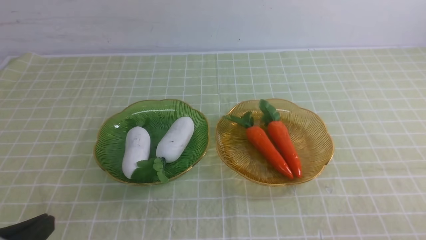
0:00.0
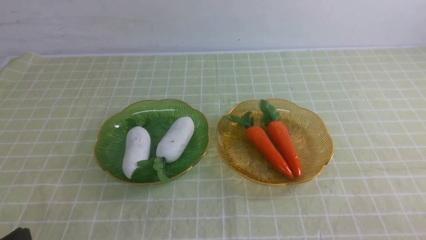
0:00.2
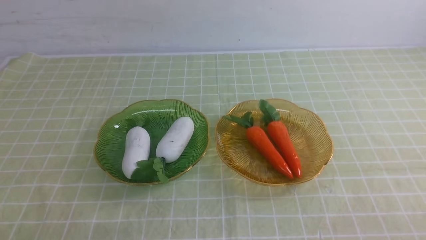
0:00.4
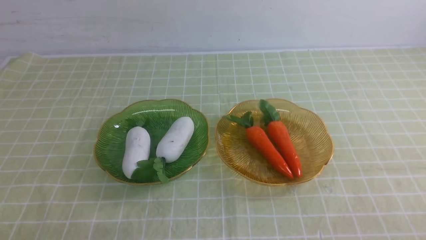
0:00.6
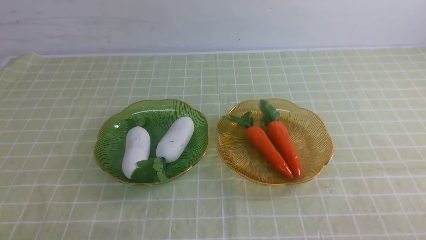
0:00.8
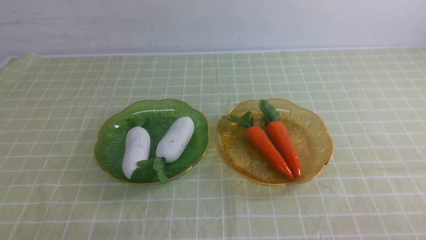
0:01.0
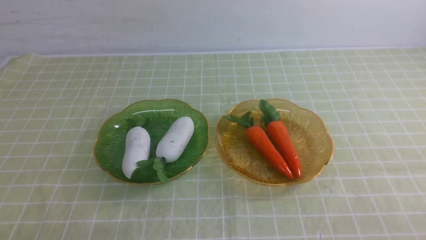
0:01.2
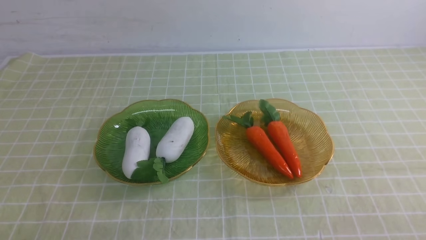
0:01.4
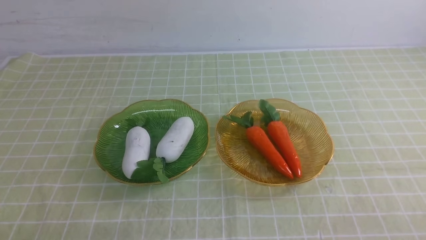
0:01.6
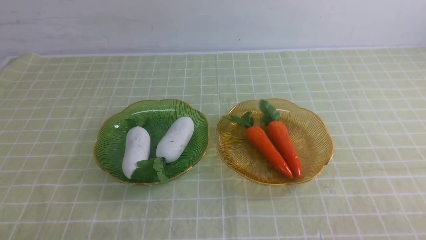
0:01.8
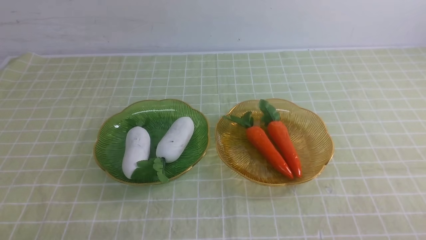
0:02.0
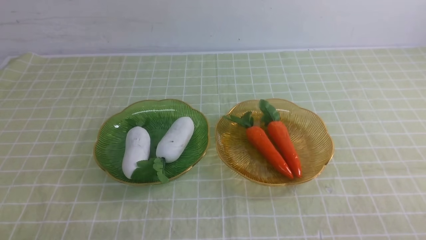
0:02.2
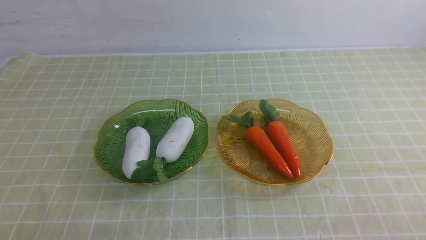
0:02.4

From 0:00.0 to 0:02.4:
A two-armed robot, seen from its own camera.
From 0:00.0 to 0:01.2: The left gripper is displaced downward by roughly 10 cm.
From 0:01.2 to 0:02.4: Neither gripper changes place.

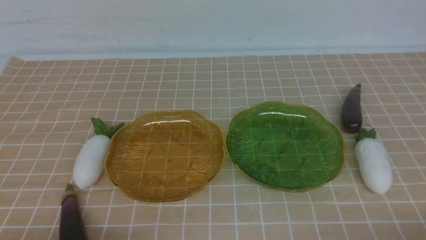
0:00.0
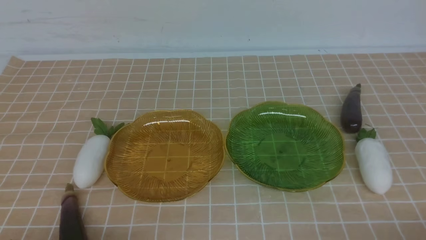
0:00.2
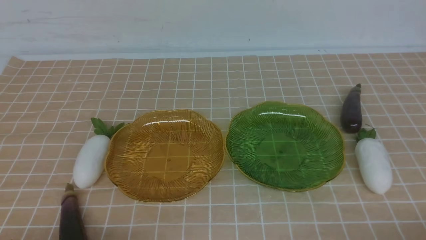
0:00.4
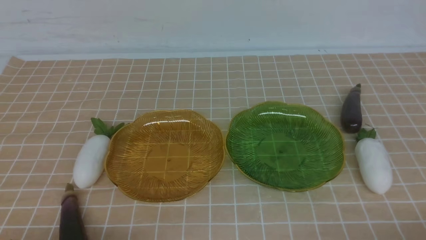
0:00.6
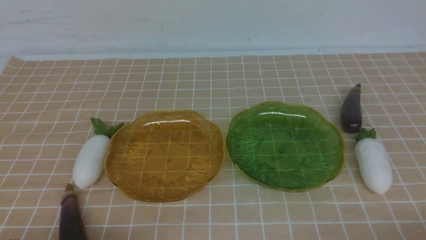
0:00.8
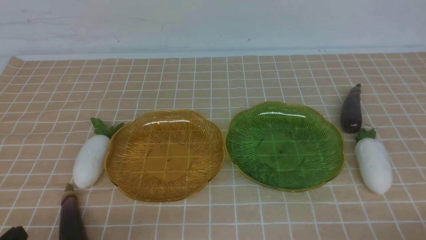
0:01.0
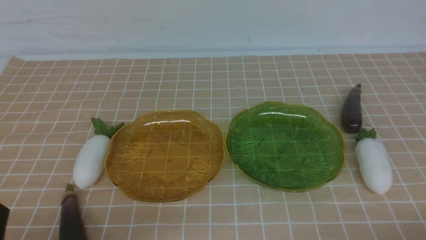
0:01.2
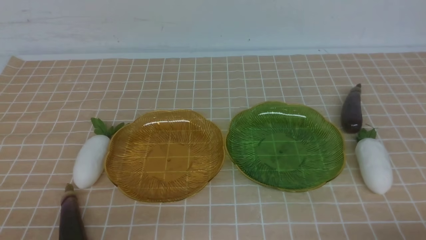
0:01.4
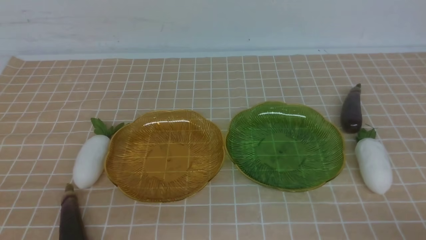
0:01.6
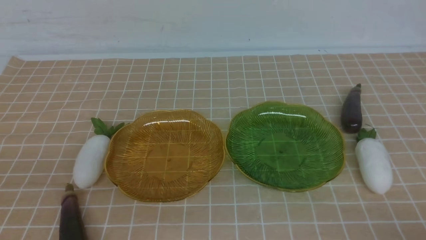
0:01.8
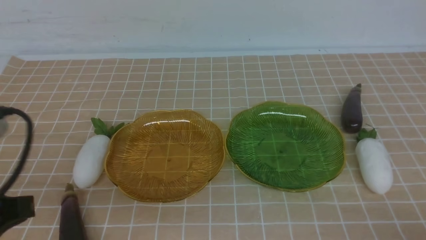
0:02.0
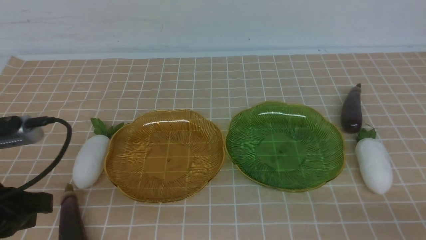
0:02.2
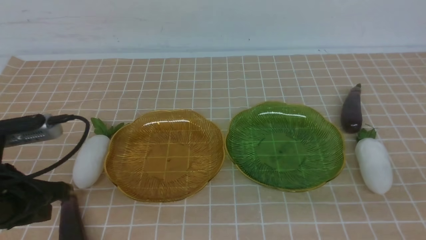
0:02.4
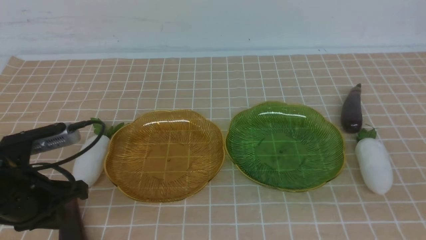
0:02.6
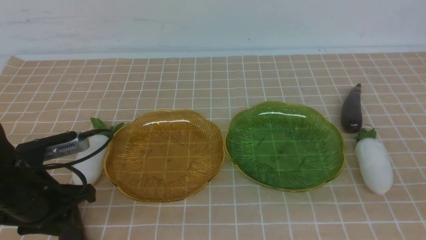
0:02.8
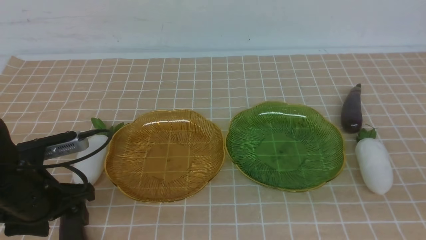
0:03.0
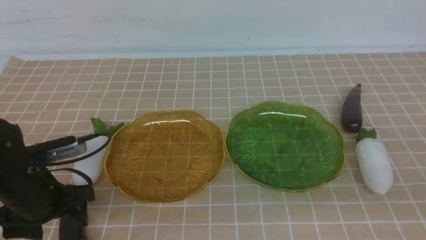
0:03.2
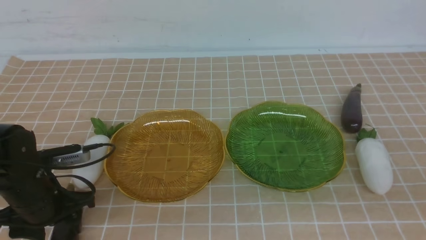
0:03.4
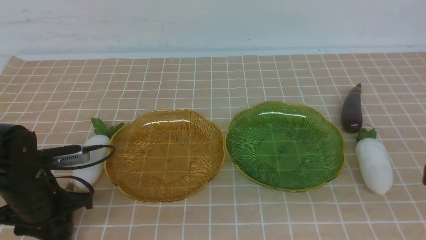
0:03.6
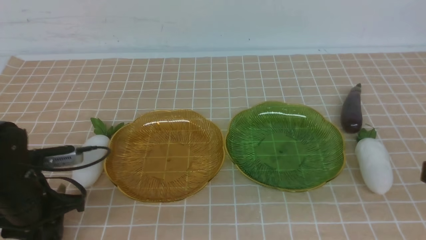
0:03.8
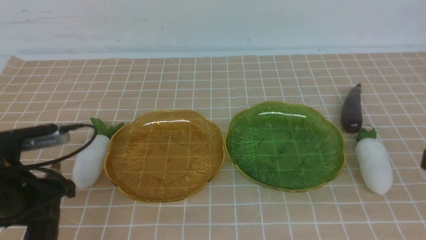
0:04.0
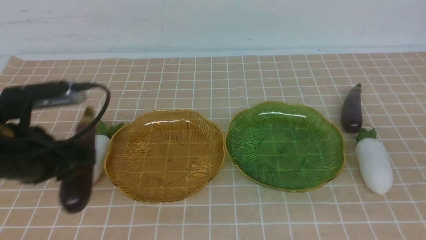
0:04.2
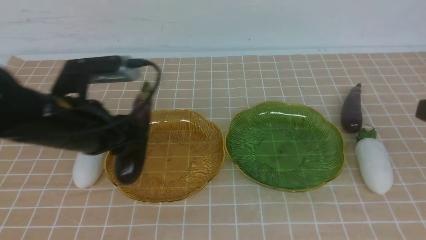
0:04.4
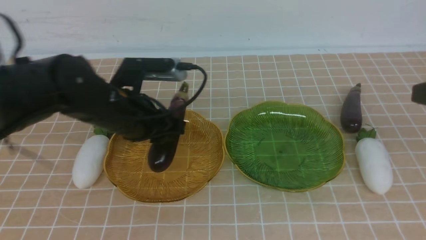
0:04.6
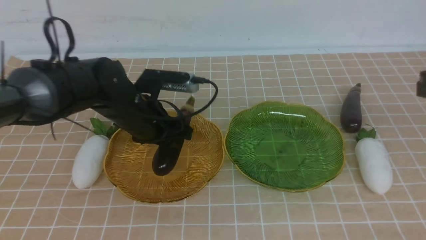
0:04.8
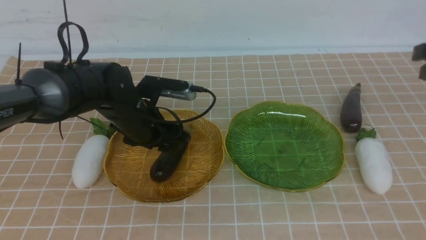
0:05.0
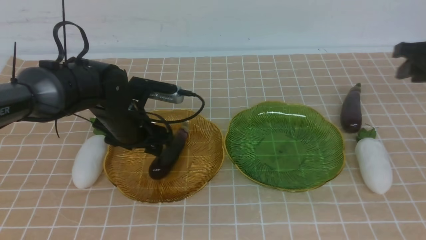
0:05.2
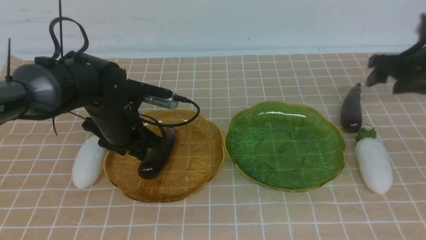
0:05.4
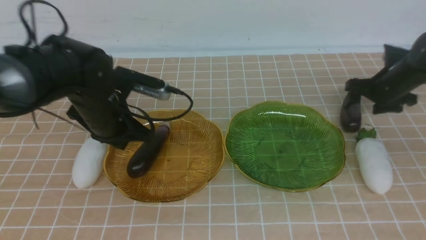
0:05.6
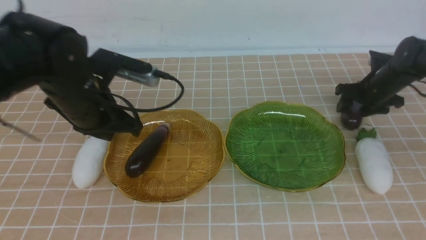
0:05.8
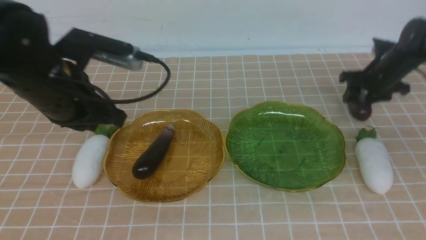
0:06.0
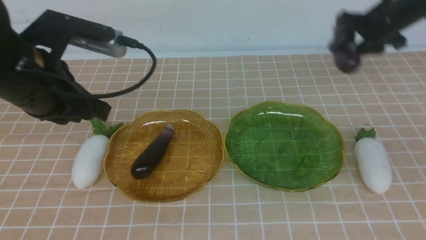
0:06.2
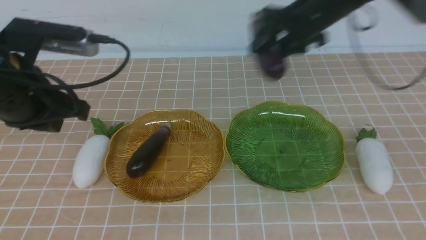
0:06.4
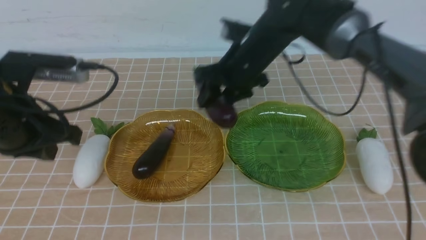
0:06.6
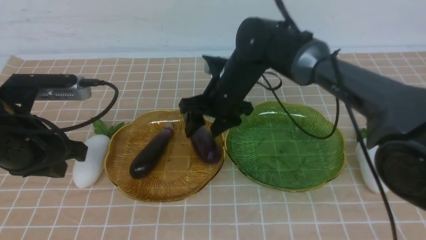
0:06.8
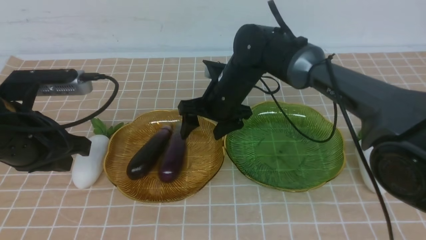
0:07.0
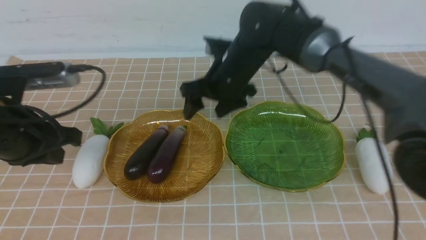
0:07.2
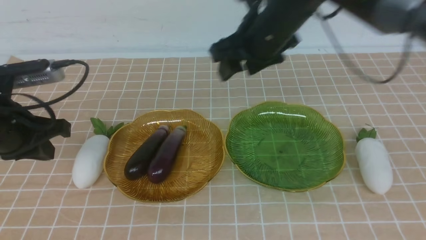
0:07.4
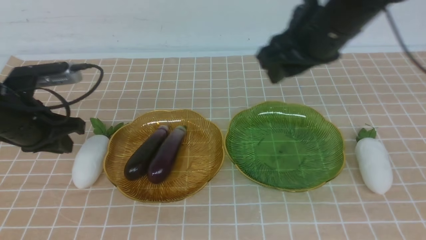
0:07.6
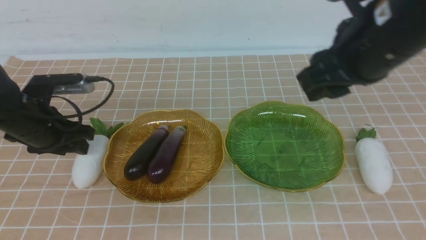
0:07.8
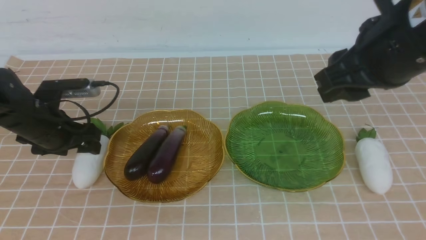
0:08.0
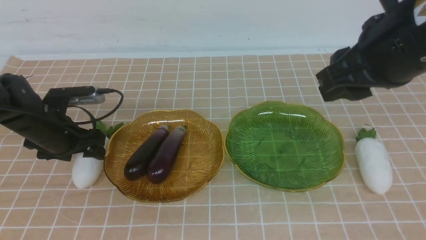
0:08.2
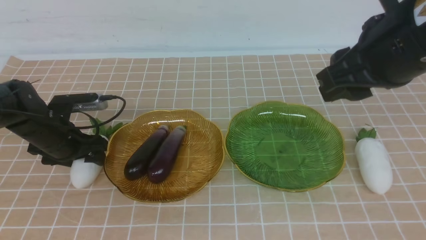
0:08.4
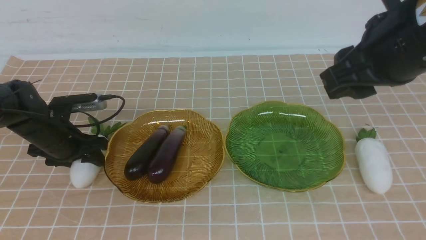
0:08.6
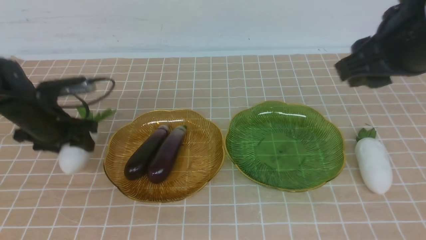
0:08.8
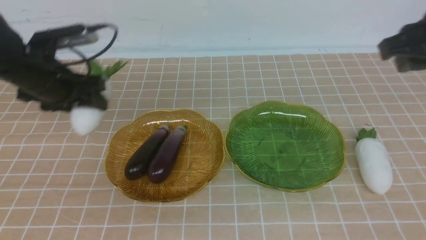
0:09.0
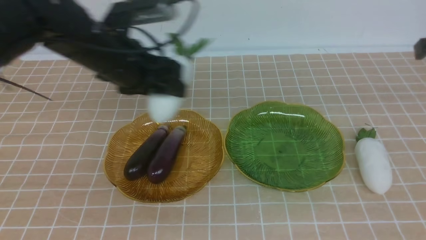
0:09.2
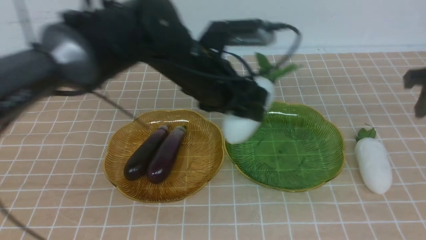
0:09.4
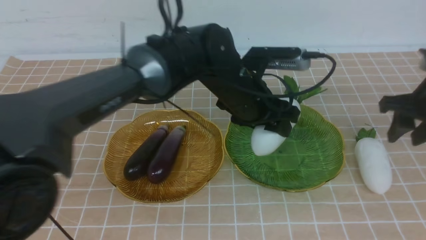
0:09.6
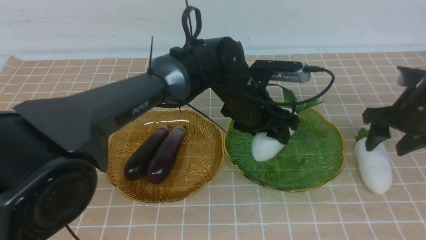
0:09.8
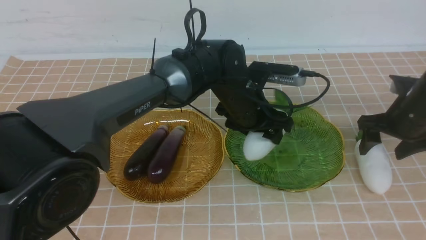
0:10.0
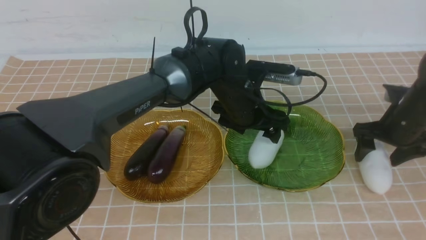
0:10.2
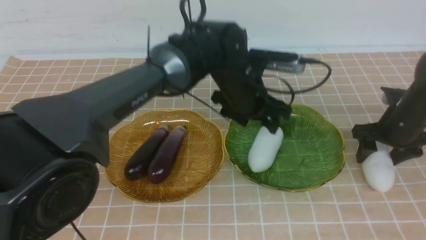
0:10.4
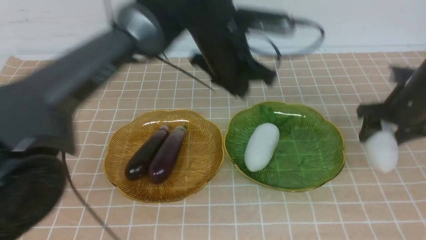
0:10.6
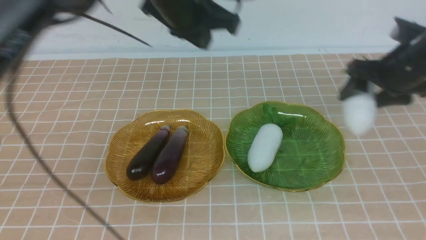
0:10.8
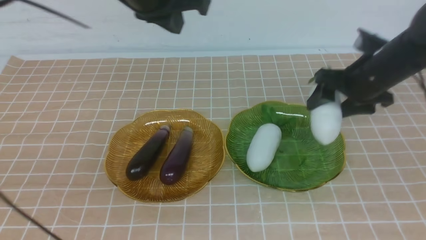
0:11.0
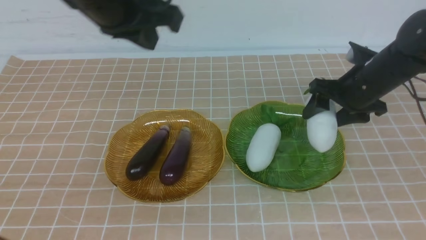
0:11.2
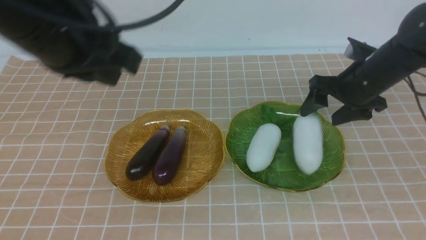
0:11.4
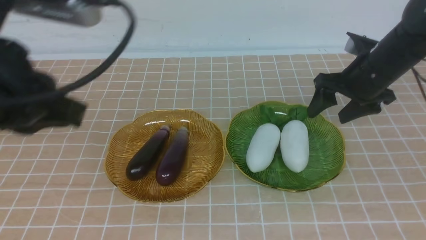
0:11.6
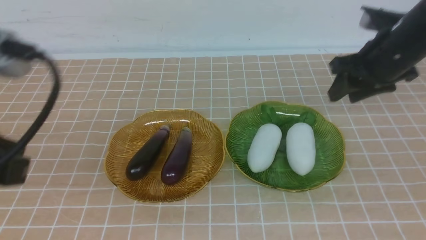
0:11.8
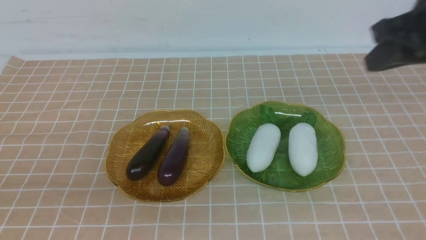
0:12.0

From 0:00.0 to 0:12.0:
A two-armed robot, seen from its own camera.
Step, from 0:00.0 to 0:05.2: use the left arm to grab an eggplant and put it into the left plate.
Step, from 0:05.4 to 0:07.2: use the right arm to grab an eggplant and put it into the left plate.
Step, from 0:07.4 to 0:10.2: use the left arm to grab a radish and put it into the right plate.
Step, from 0:10.4 to 0:11.6: use the right arm to grab a radish and put it into the right plate.
From 0:01.6 to 0:03.0: The right gripper travels upward by approximately 15 cm, while the left gripper shifts about 20 cm forward and downward, and opens its fingers.
From 0:03.0 to 0:04.4: The left gripper moves upward and to the right, approximately 10 cm, and closes its fingers. The right gripper goes some 10 cm forward.
From 0:04.4 to 0:06.0: The left gripper closes, while the right gripper goes approximately 35 cm forward and downward, and opens up.
From 0:06.0 to 0:07.6: The left gripper shifts about 15 cm downward, to the left and forward, and opens. The right gripper travels backward, upward and to the left by some 35 cm.
From 0:07.6 to 0:09.0: The left gripper travels to the right by some 25 cm. Meanwhile the right gripper is displaced to the right, downward and forward by about 20 cm.
From 0:09.0 to 0:10.4: The right gripper travels downward by roughly 5 cm. The left gripper is displaced upward by about 10 cm, and closes up.
From 0:10.4 to 0:12.0: The right gripper heads upward and backward, covering approximately 20 cm, and closes its fingers; the left gripper shifts some 35 cm backward and to the left.

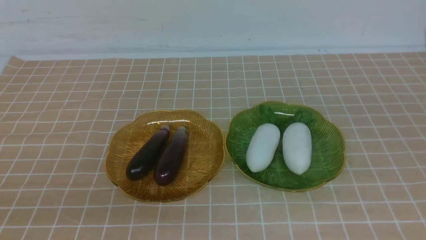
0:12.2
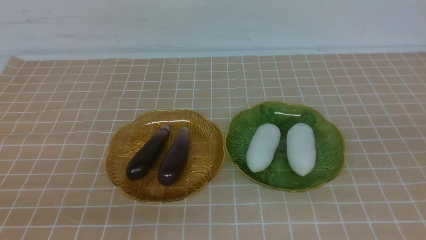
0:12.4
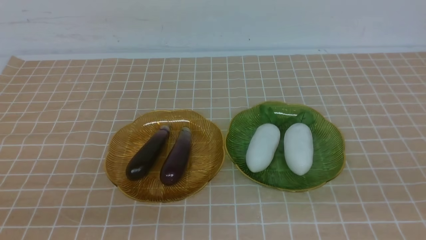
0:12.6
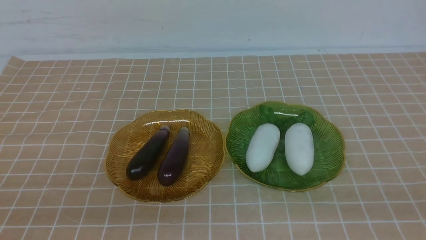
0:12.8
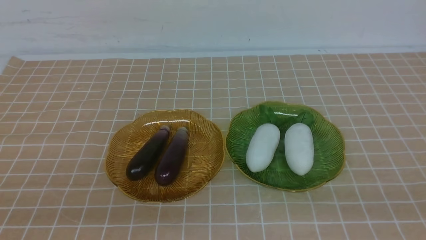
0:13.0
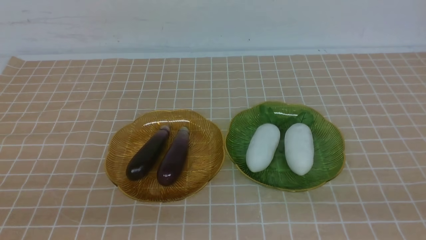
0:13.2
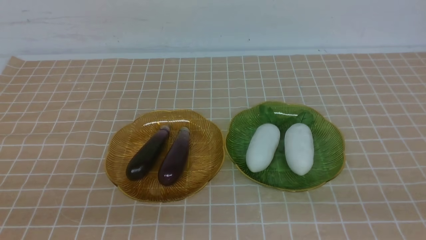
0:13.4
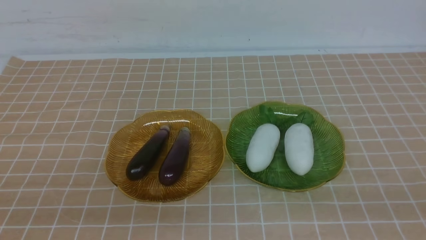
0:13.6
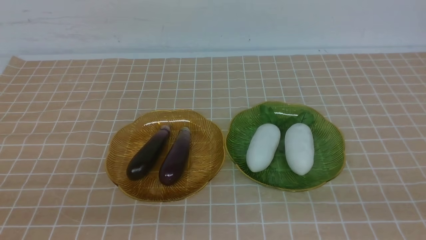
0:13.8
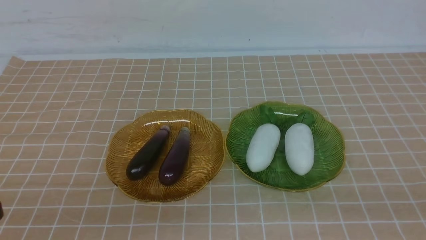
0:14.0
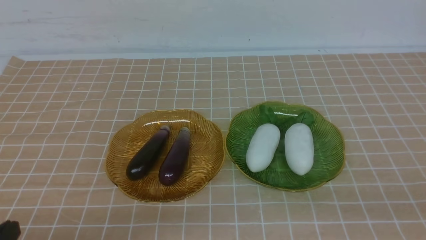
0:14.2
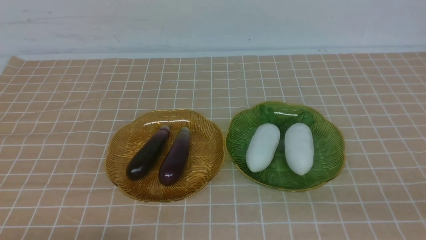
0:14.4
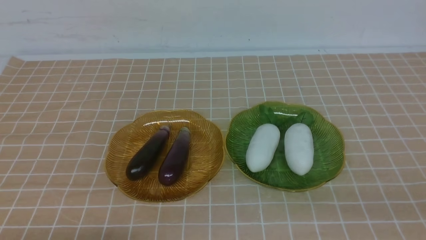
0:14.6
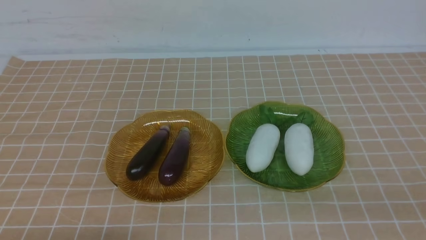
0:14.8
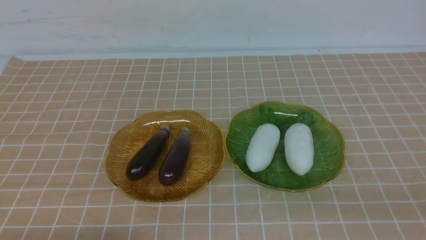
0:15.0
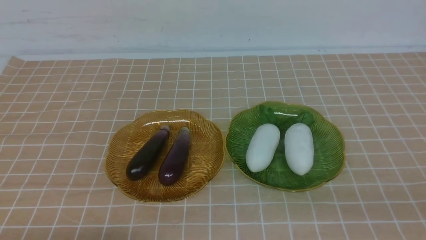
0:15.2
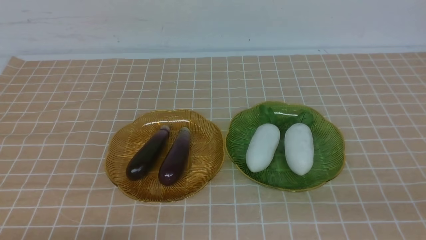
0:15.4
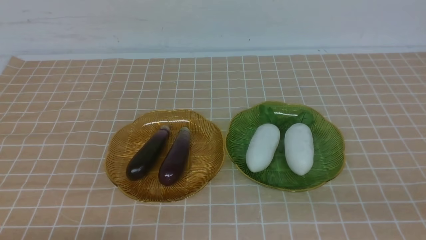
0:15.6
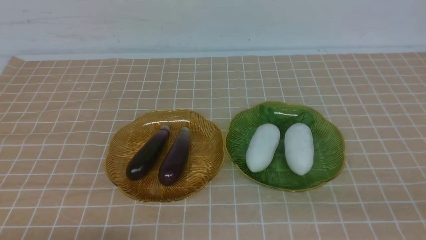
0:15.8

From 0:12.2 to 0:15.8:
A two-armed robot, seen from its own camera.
From 0:12.2 to 0:14.0: The right gripper is displaced backward and downward by some 20 cm.
